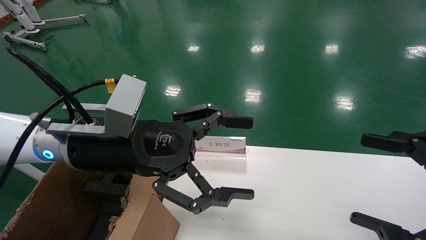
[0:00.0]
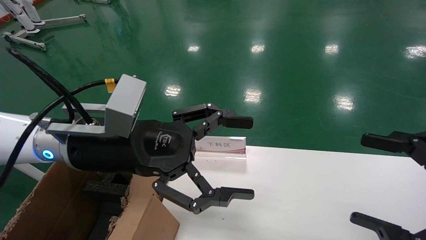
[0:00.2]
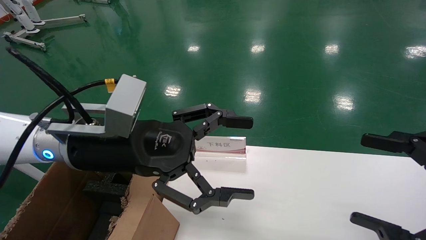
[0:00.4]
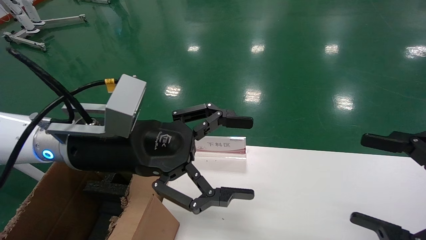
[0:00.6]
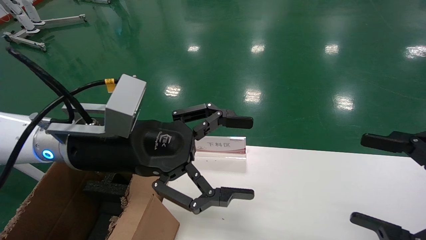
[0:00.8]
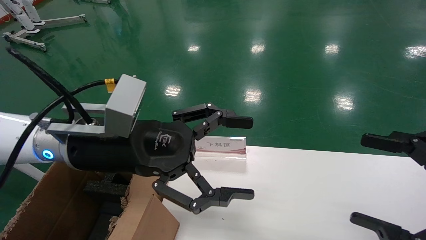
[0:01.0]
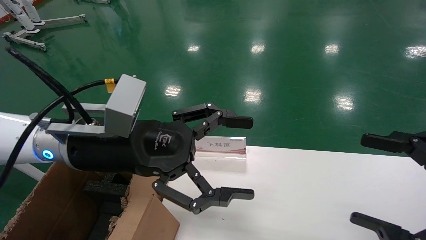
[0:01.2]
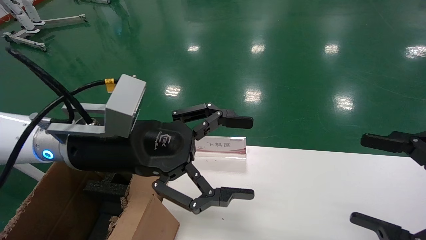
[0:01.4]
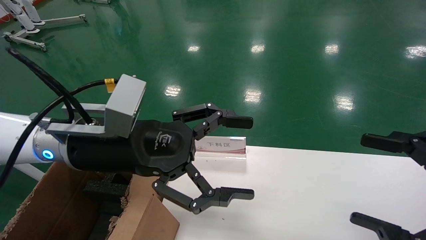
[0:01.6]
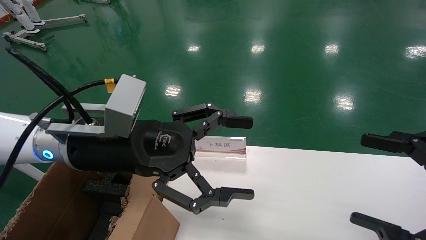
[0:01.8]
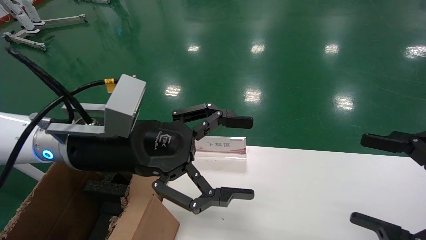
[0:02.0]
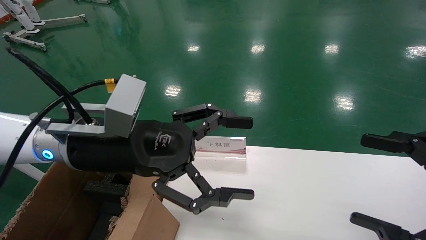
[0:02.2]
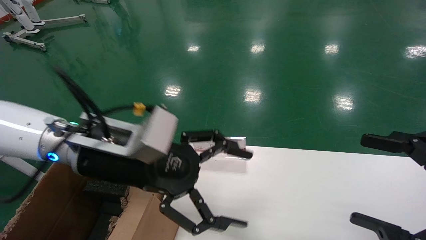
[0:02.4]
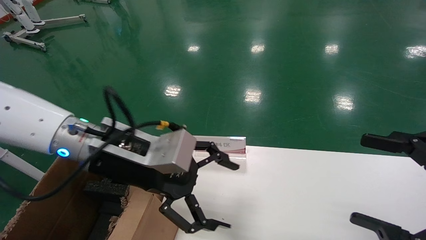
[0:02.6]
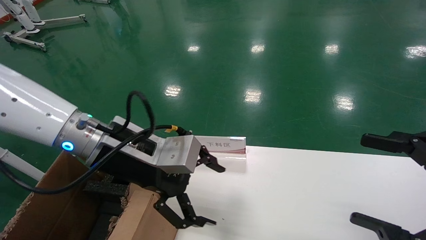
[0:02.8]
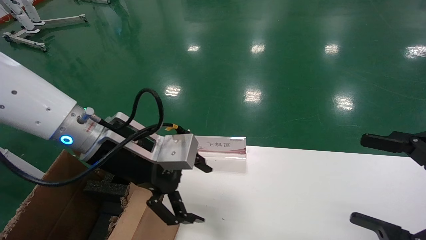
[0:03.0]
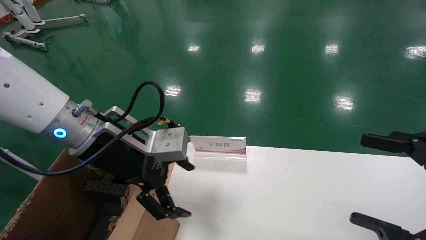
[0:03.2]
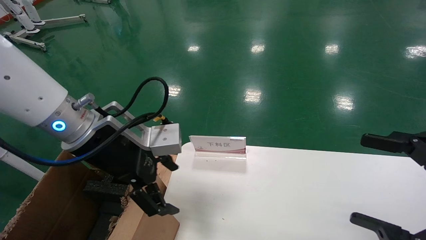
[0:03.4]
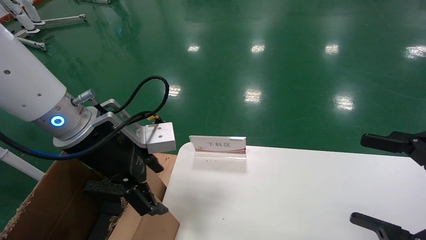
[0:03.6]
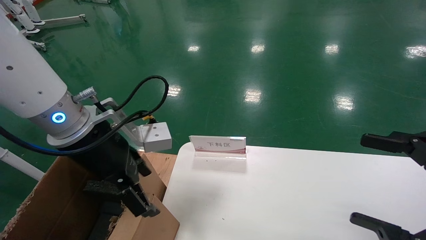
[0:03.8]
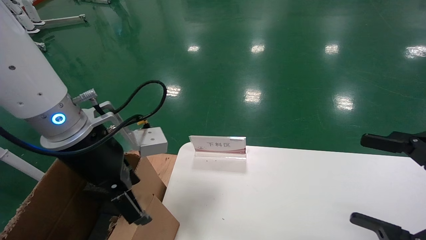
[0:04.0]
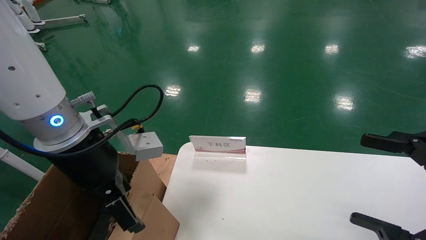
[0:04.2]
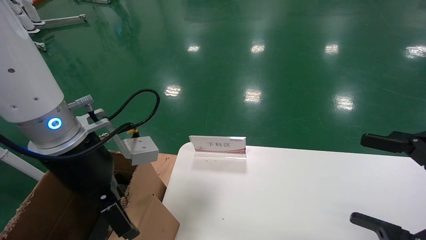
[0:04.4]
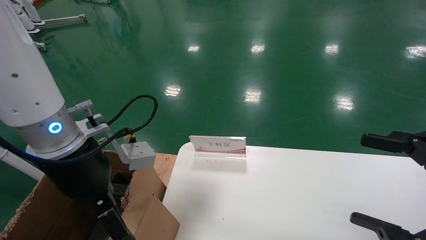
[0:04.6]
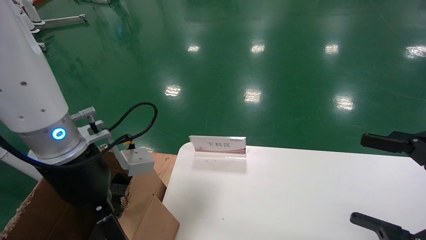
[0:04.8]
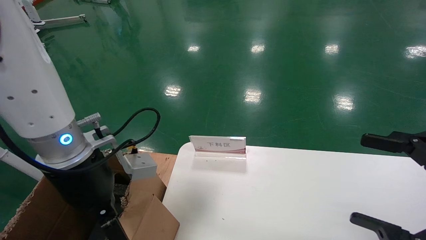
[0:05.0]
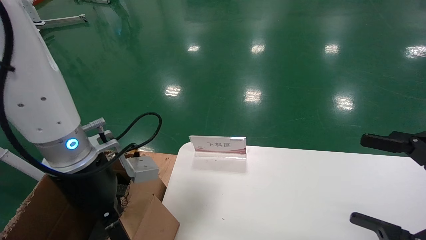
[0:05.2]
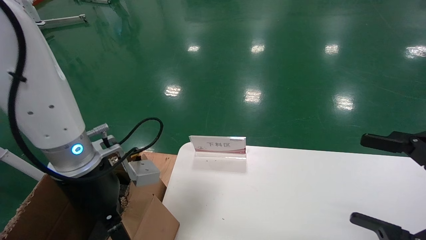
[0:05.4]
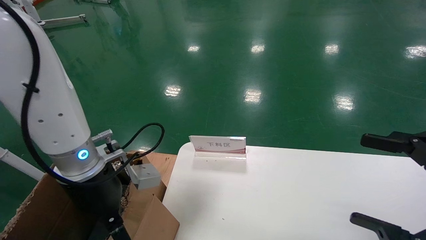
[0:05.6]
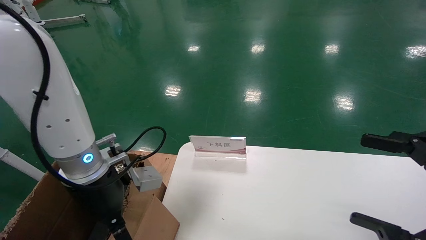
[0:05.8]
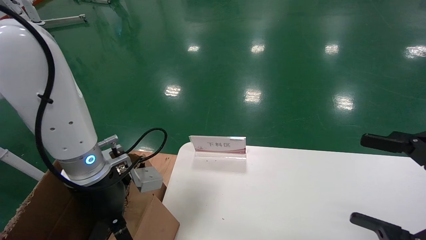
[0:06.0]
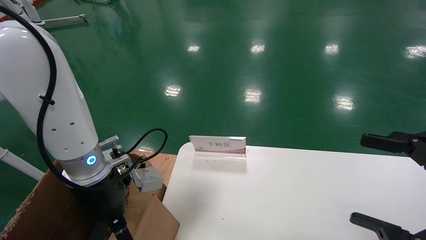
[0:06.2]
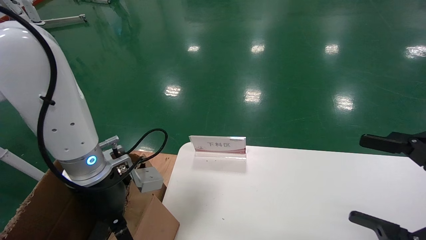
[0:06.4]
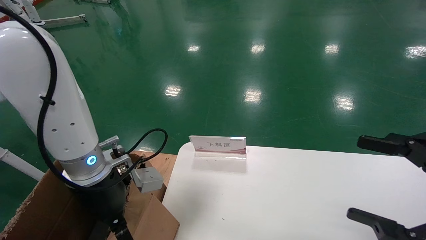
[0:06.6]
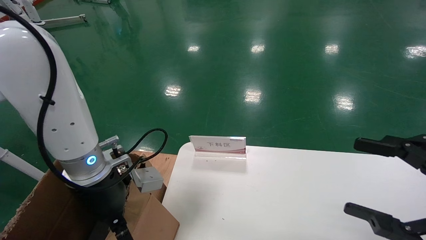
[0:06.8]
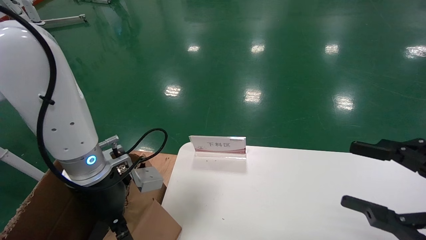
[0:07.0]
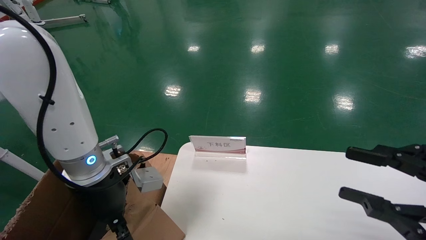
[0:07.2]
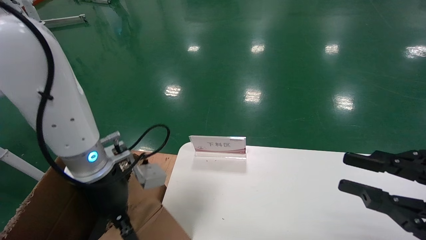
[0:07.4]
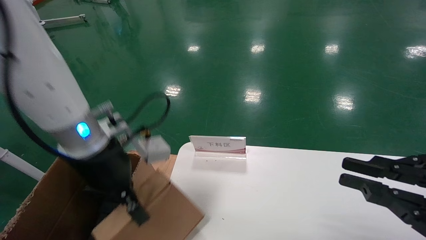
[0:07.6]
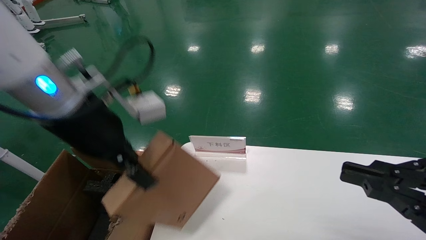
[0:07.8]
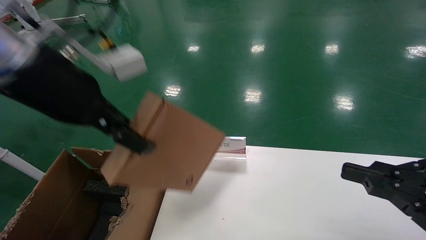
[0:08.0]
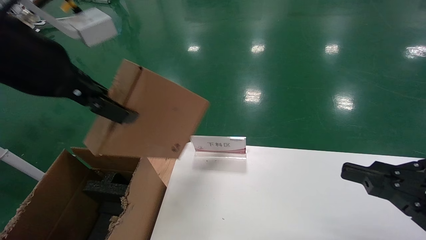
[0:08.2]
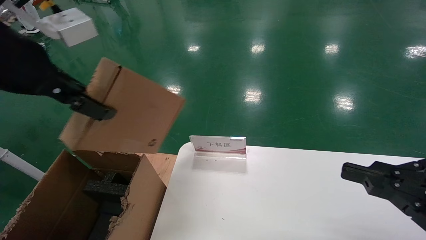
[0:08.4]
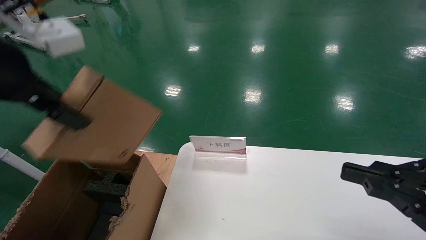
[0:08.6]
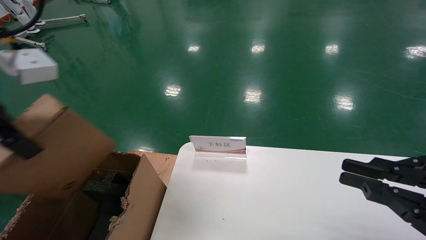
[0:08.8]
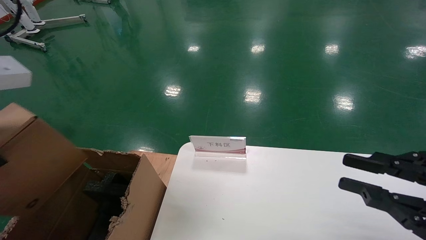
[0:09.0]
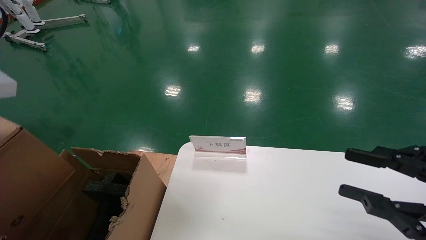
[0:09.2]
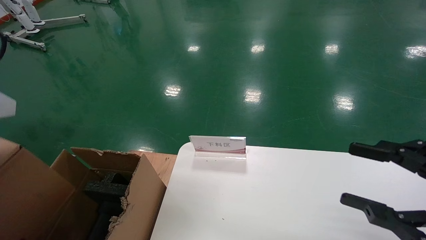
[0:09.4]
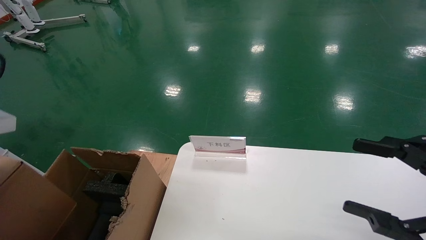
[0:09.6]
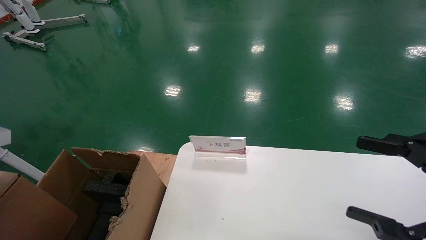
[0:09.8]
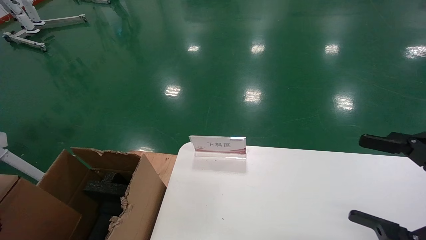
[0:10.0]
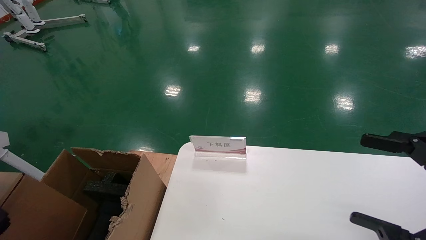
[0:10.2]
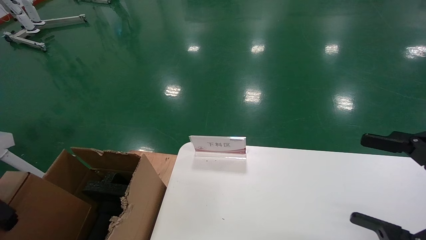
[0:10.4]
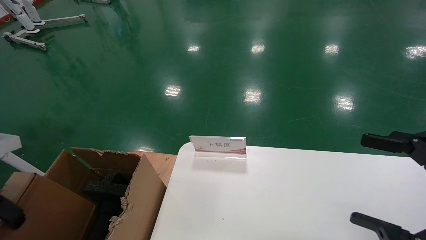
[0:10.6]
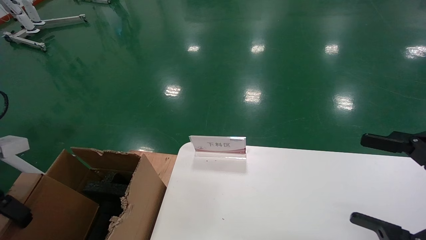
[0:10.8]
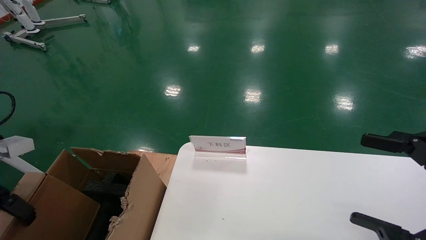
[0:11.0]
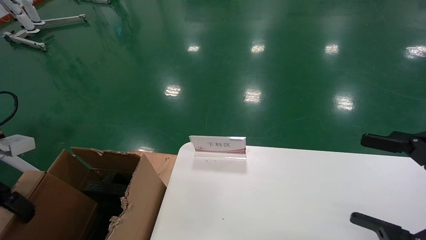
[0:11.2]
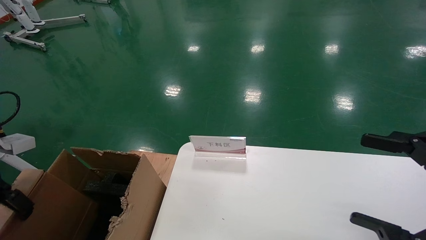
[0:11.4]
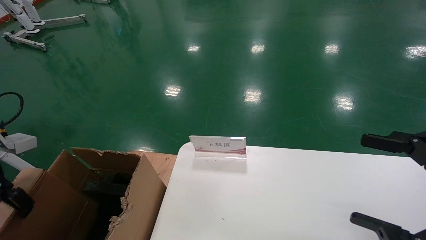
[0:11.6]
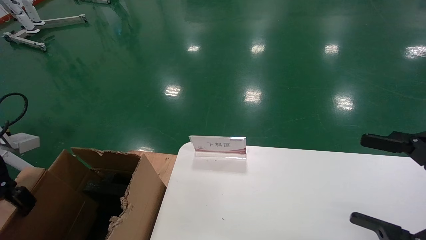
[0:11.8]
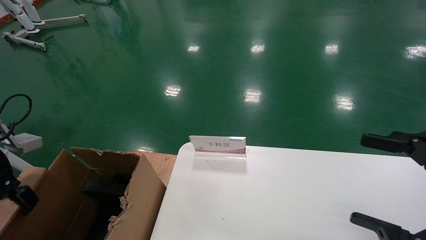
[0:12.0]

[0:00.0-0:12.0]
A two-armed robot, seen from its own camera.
Task of the whole recording: pick up the small cardboard box and load it into the large cardboard box.
Step, 0:00.0 to 0:06.8: Grasp the paper box.
0:00.0 to 0:01.6: The two grippers keep their place.
0:04.4 to 0:06.0: The left gripper moves downward, some 5 cm.
0:06.0 to 0:07.6: The right gripper closes its fingers. Meanwhile the left gripper moves upward, approximately 5 cm, and closes its fingers.
0:07.6 to 0:09.0: The left gripper shifts approximately 20 cm upward, backward and to the left.
0:09.0 to 0:10.4: The right gripper opens up. The left gripper travels to the left and downward by roughly 15 cm.
0:10.4 to 0:12.0: The left gripper is displaced forward and downward by approximately 10 cm.

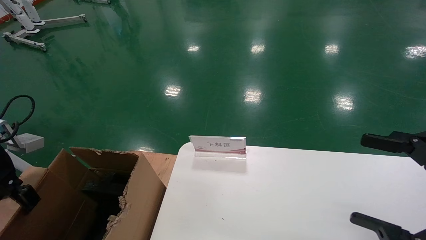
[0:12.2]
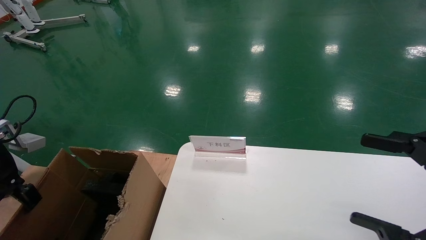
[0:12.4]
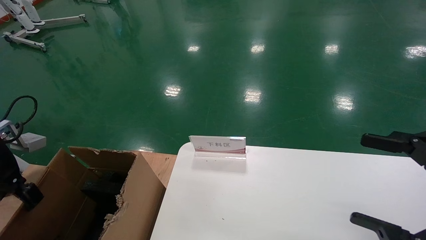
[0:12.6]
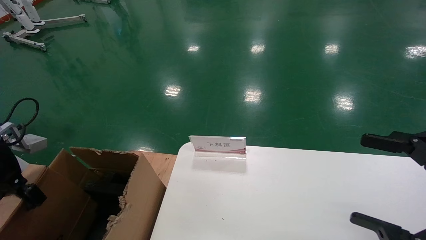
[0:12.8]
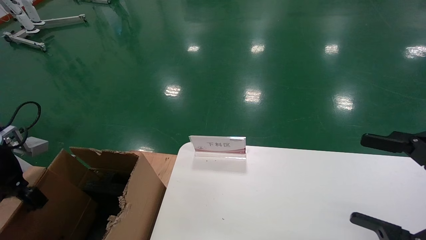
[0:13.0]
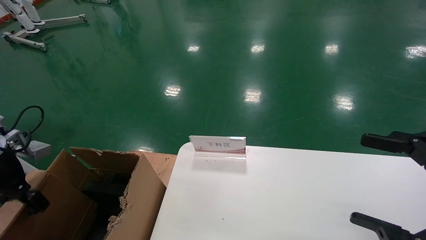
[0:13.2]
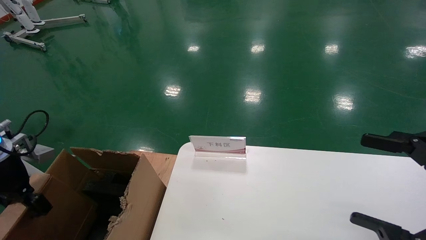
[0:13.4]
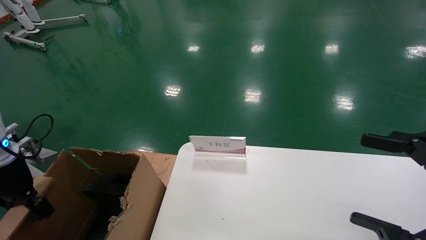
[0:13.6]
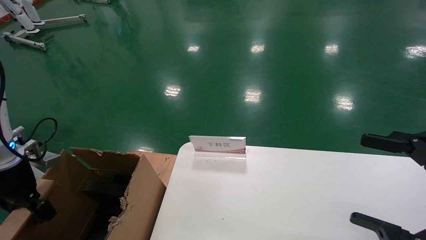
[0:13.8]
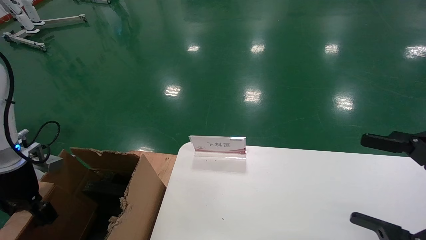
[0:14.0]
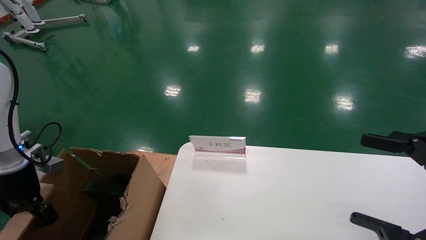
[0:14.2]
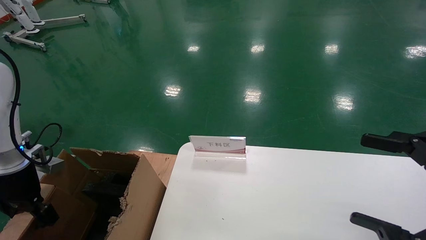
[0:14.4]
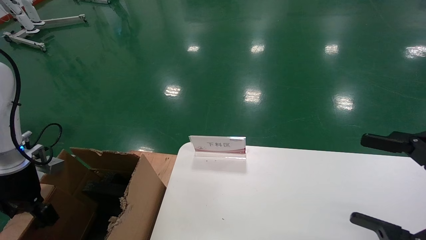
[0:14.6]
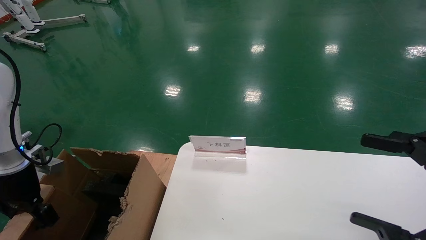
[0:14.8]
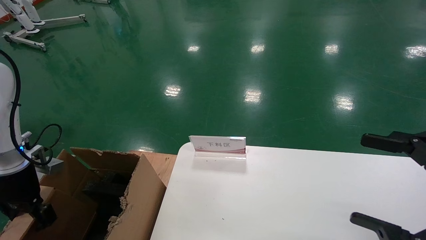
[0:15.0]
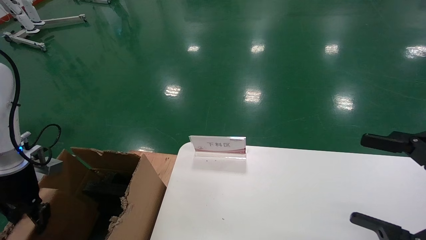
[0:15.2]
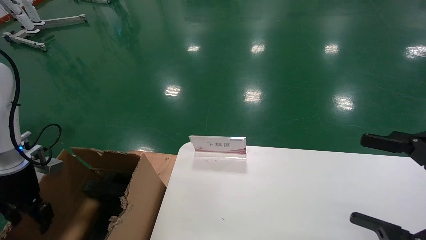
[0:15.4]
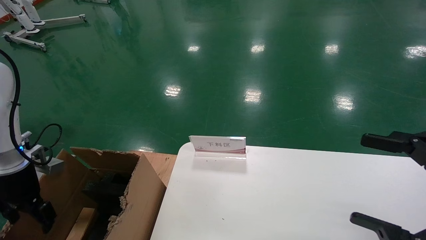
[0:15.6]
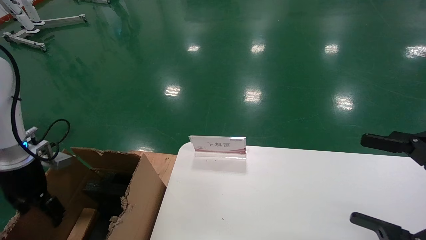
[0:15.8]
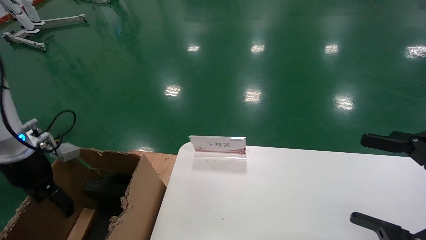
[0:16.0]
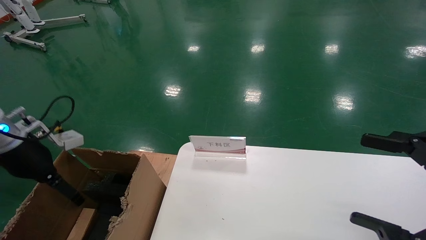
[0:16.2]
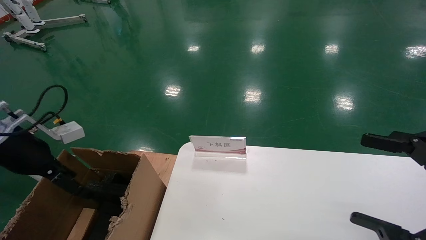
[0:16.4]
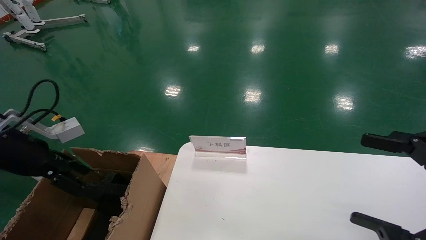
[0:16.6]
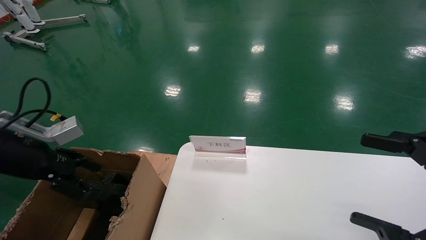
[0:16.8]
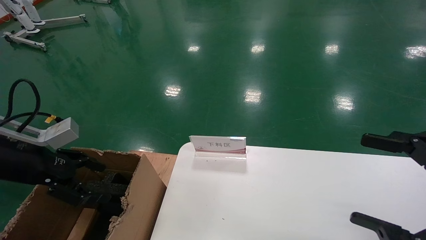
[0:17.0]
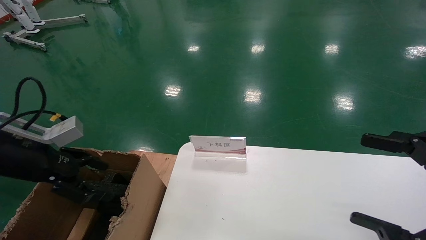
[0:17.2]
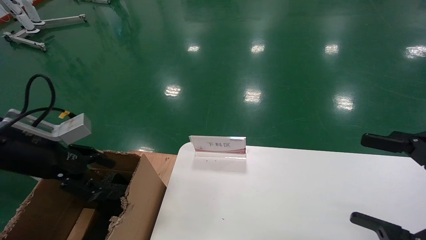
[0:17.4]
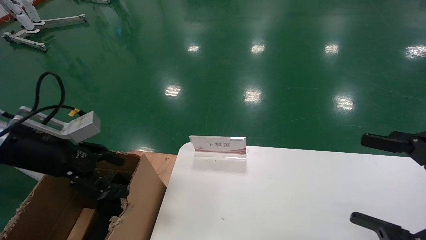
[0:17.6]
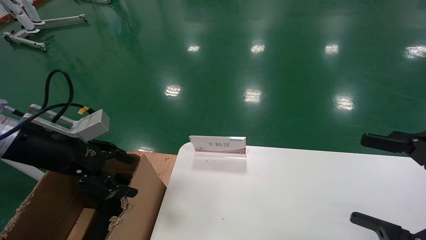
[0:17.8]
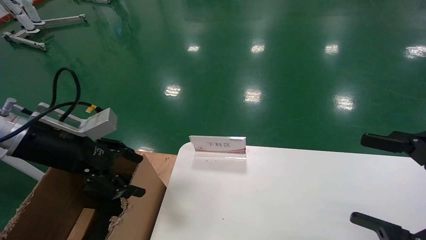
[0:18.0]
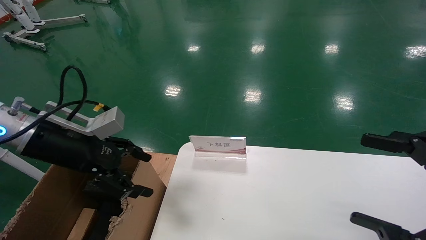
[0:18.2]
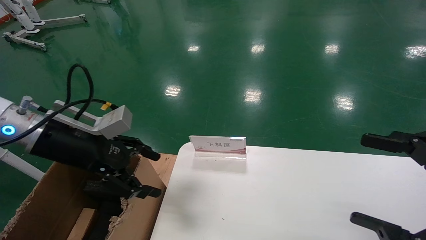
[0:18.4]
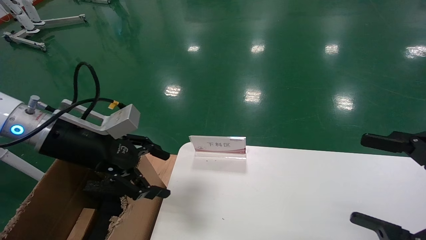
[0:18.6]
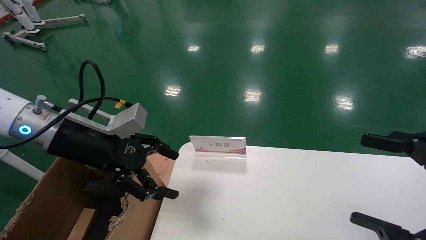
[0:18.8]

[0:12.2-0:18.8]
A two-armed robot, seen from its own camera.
Task of the whole recording: pick up the small cardboard box and load it into the large cardboard box.
Step, 0:12.2 to 0:15.4: Place the paper box in the another big box.
0:12.2 to 0:13.8: The left gripper moves downward, roughly 5 cm.
0:13.8 to 0:15.4: The grippers stay close to where they were, moving slightly.
0:15.4 to 0:17.2: The left gripper moves upward and to the right, approximately 10 cm, and opens its fingers.
0:17.2 to 0:18.8: The left gripper is displaced to the right by roughly 10 cm.
